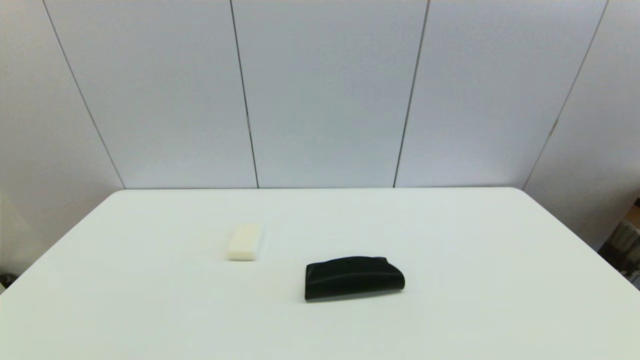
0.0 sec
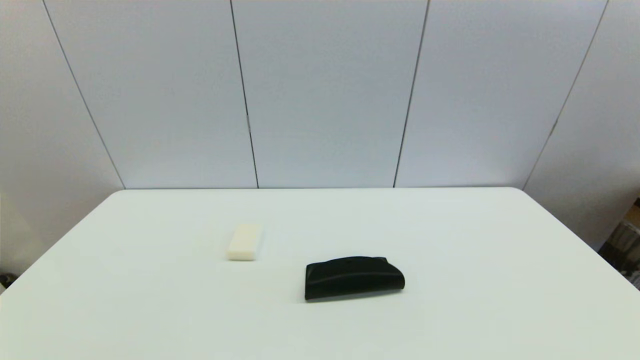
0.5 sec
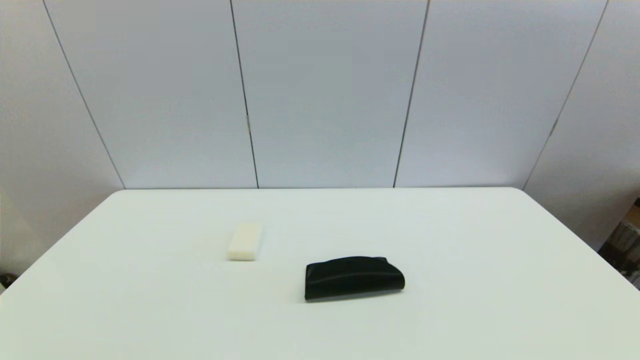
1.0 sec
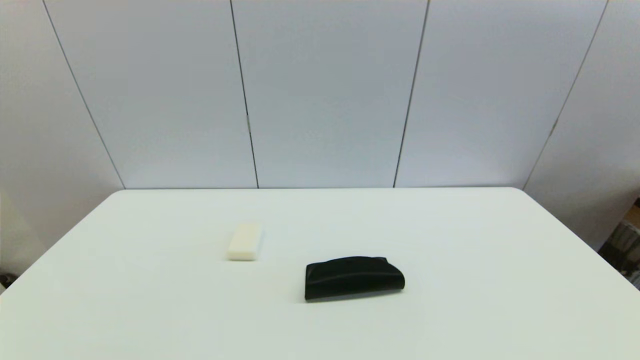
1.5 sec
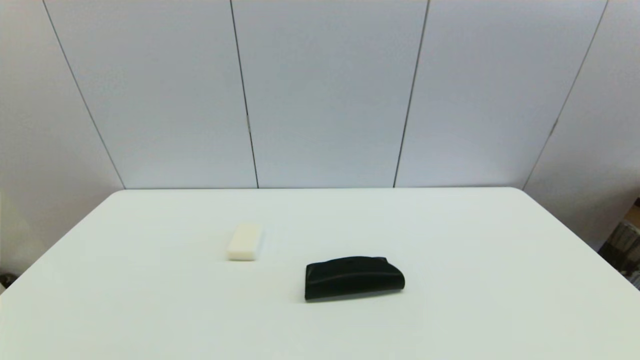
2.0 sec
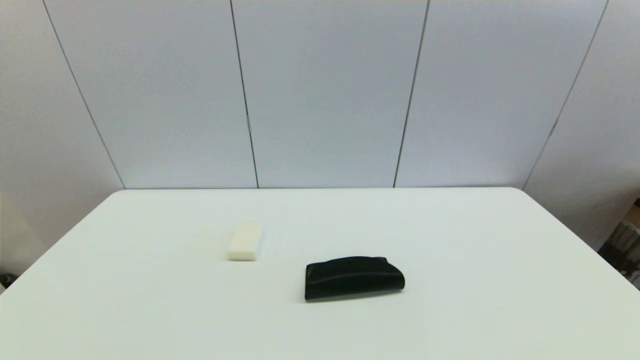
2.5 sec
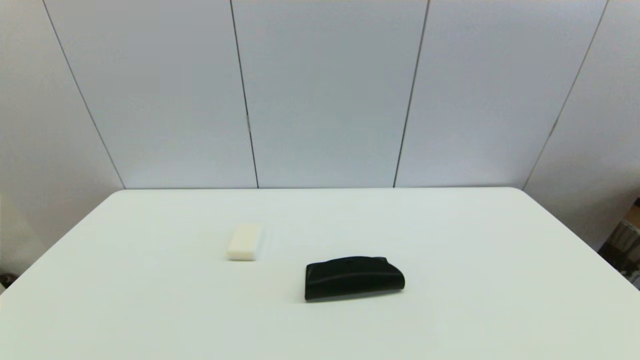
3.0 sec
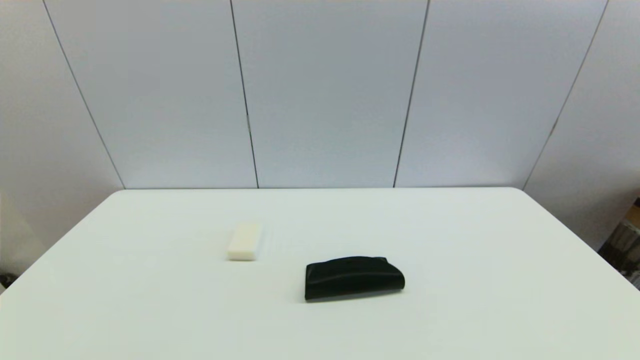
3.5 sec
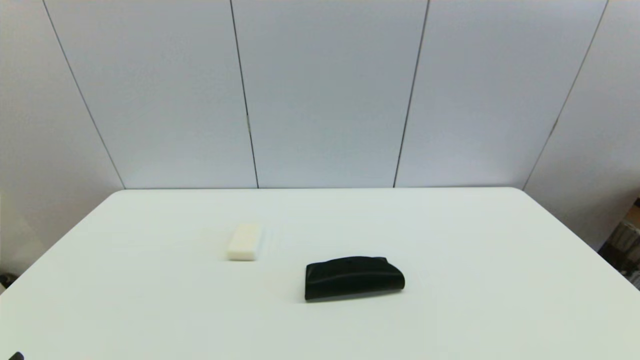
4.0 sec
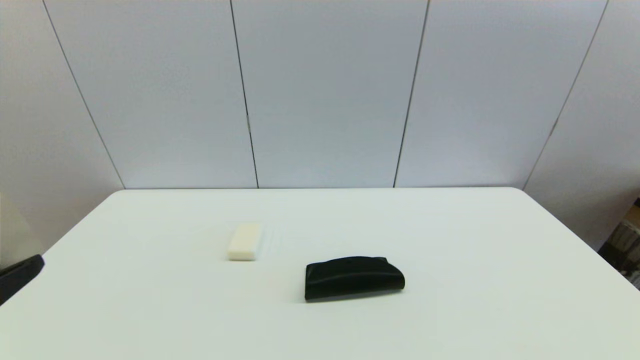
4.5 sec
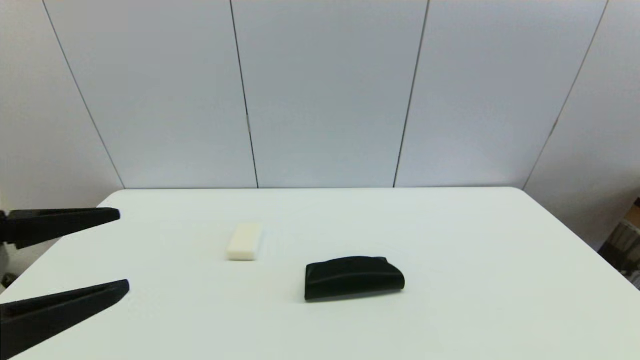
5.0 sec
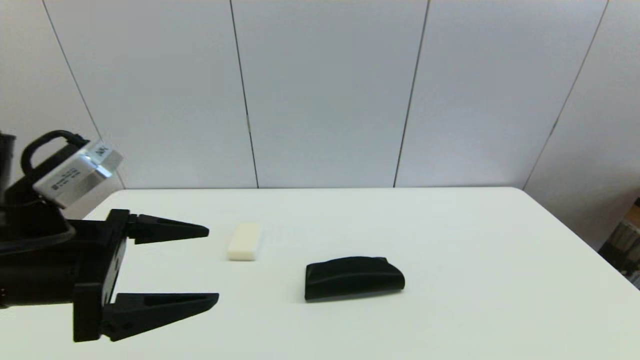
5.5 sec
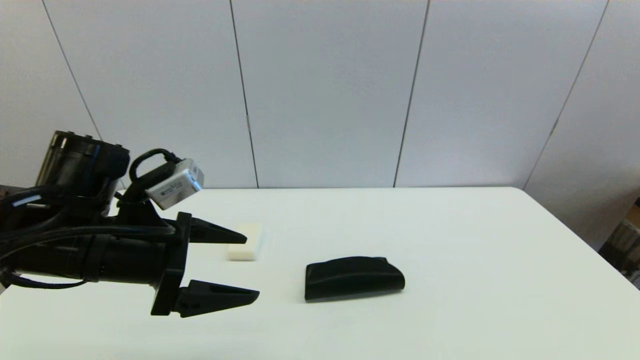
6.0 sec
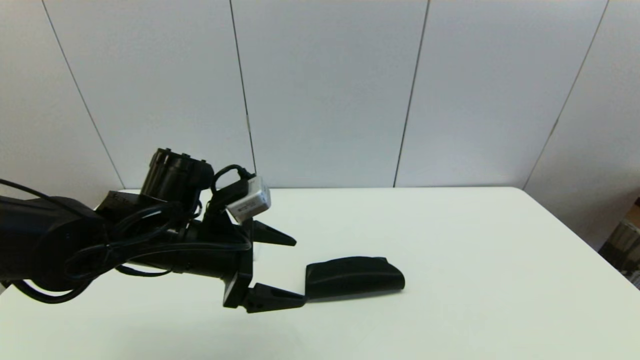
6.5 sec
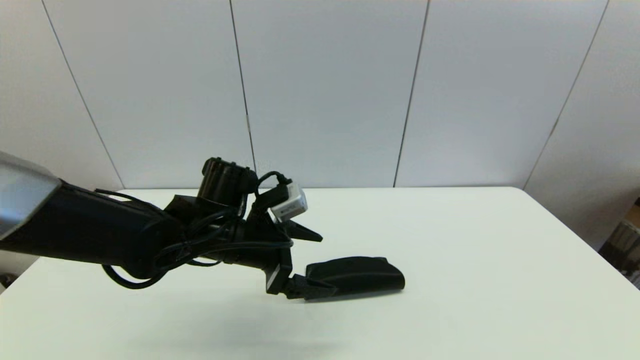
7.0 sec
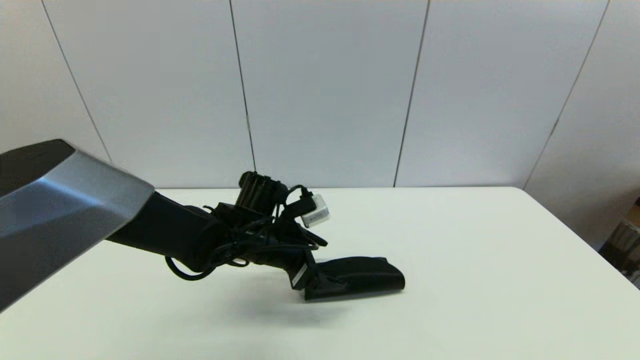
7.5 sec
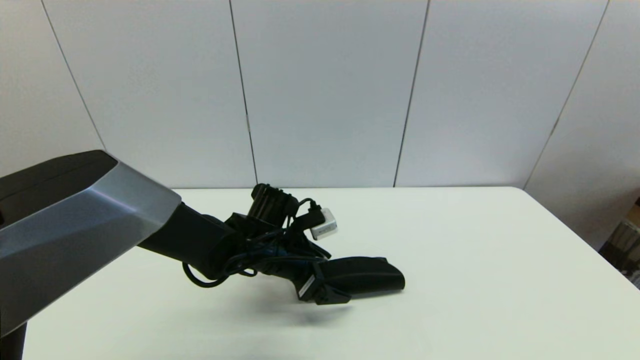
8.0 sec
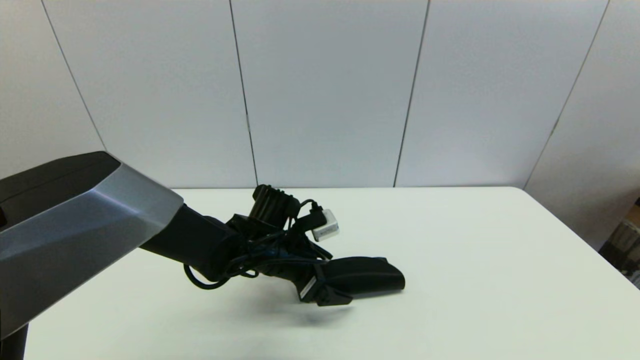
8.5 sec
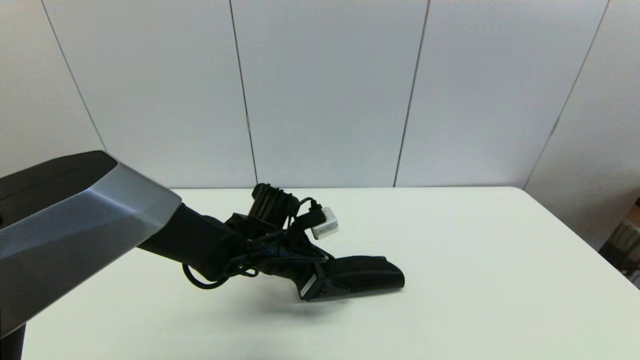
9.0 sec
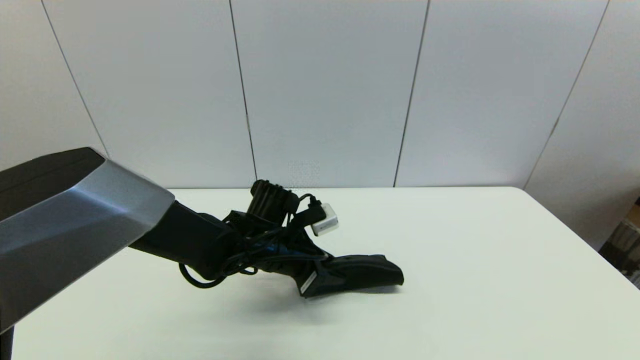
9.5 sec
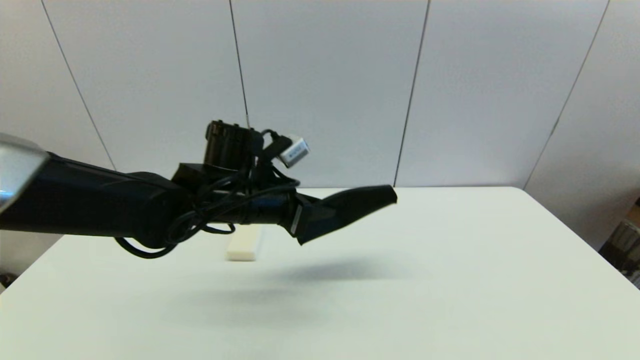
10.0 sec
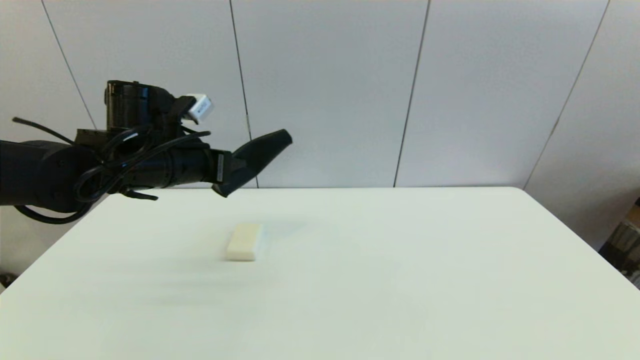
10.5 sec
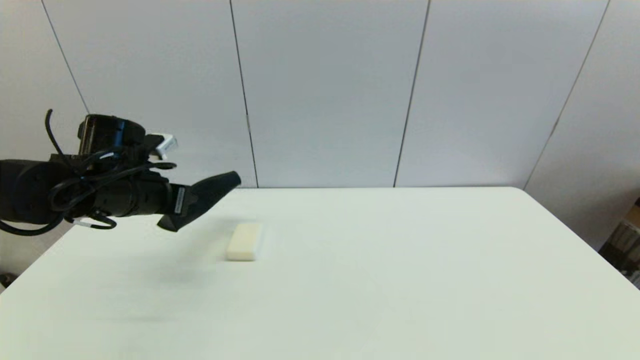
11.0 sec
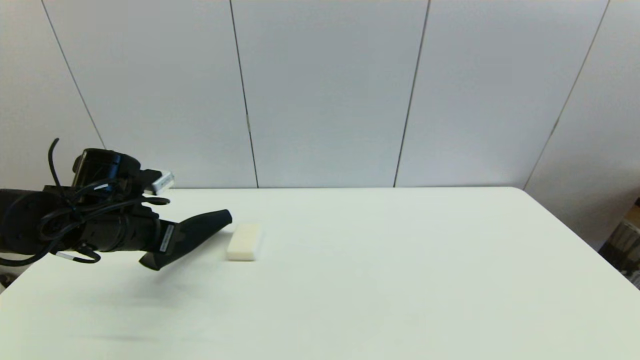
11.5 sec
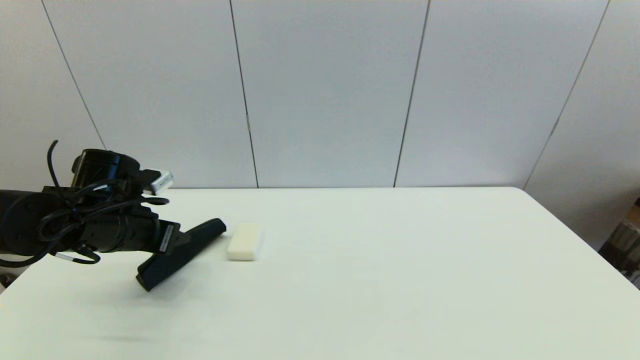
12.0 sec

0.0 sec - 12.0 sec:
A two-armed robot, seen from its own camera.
Step, 4.0 sec - 9.5 sec: Grasp the glasses case with left gripper.
0.0 sec - 2.0 sec: Neither gripper changes place.
4.0 sec - 6.0 sec: The left gripper is displaced forward and to the right by about 25 cm.
6.0 sec - 8.0 sec: The left gripper is displaced to the right, downward and forward by approximately 20 cm.
8.0 sec - 10.0 sec: The left gripper goes roughly 10 cm upward, and closes up.
10.0 sec - 12.0 sec: The left gripper goes roughly 20 cm to the left, and opens.

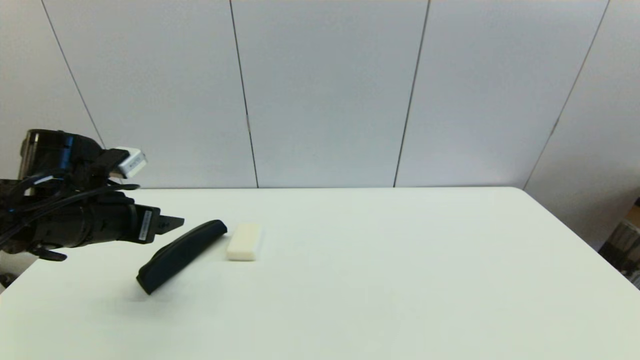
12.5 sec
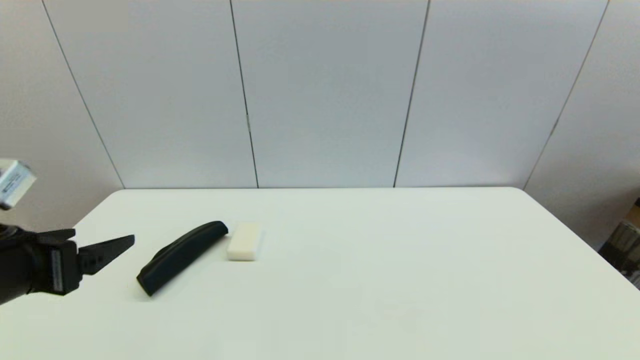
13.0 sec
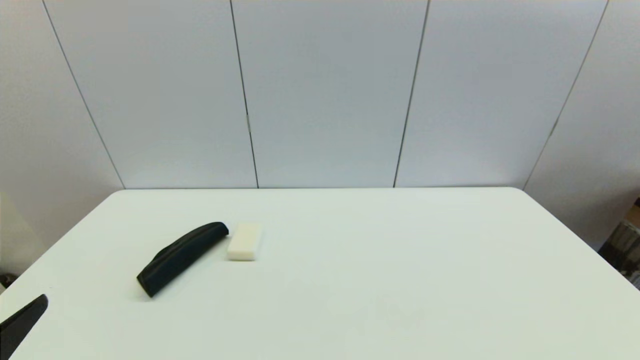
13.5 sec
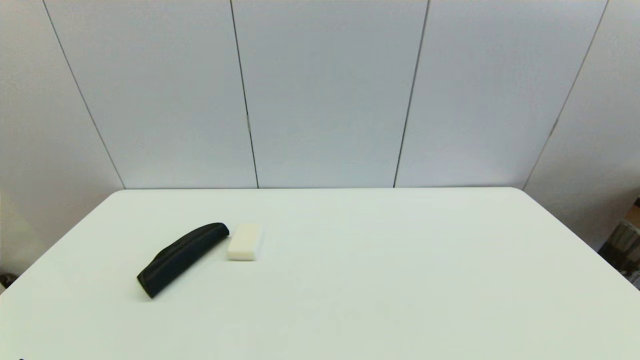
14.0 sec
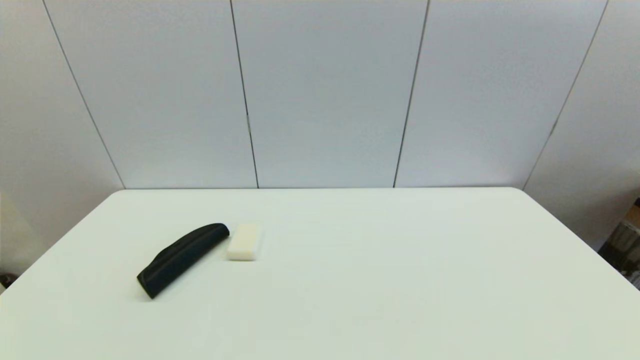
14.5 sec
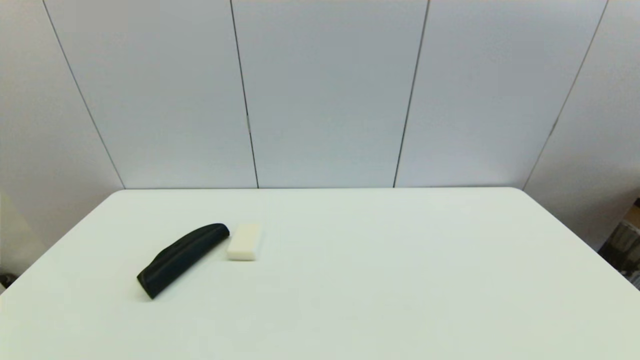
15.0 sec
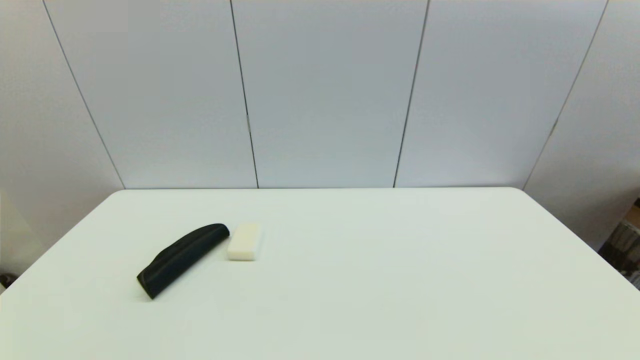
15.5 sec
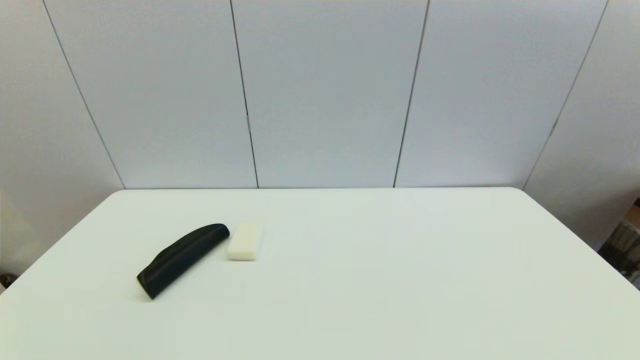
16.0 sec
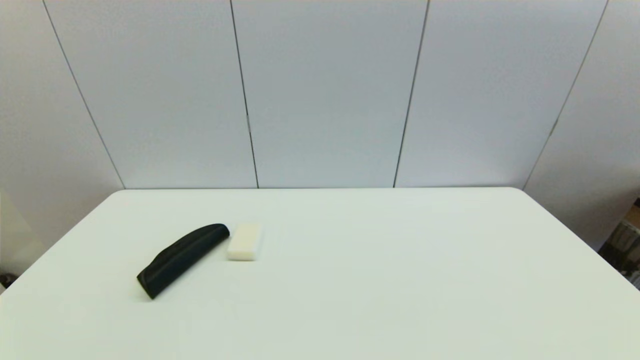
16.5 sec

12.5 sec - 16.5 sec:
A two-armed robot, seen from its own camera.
12.5 sec - 14.5 sec: The left gripper is displaced backward by roughly 30 cm.
14.5 sec - 16.5 sec: Both grippers stay put.
